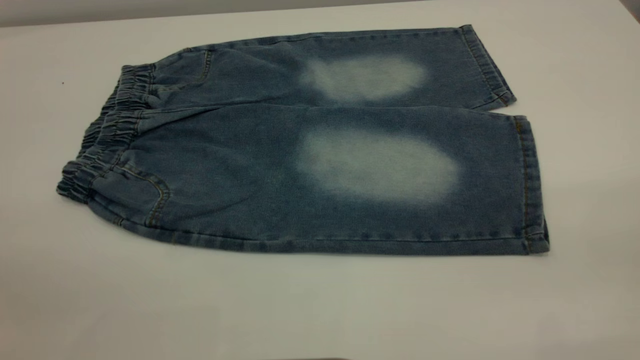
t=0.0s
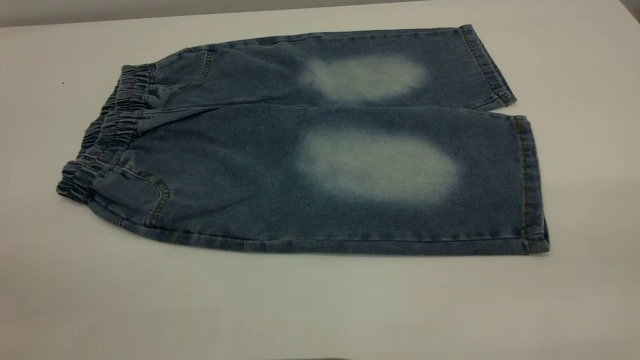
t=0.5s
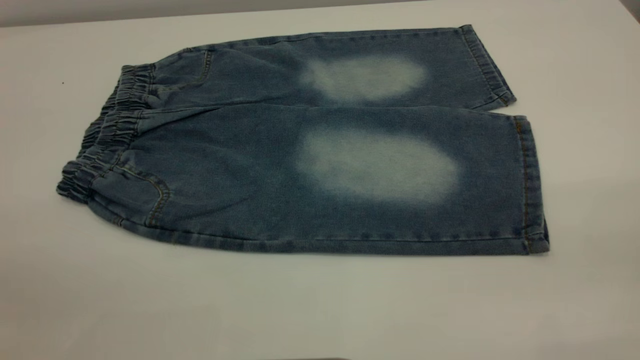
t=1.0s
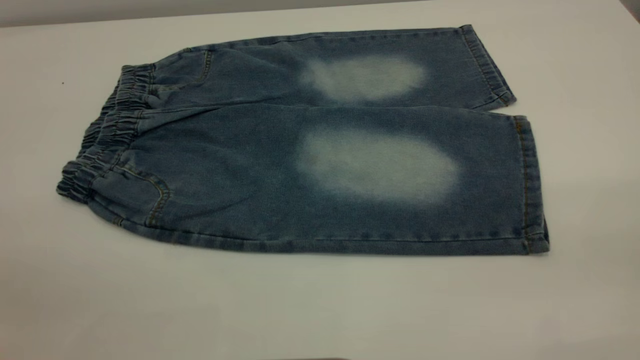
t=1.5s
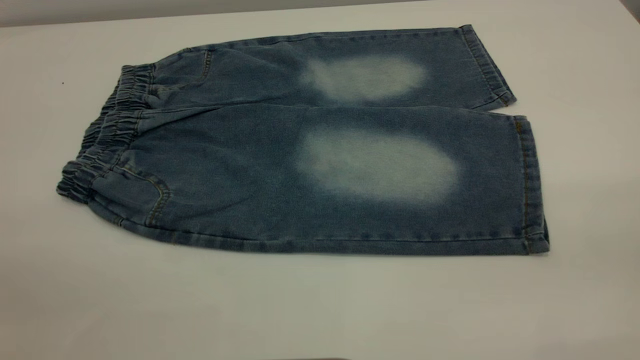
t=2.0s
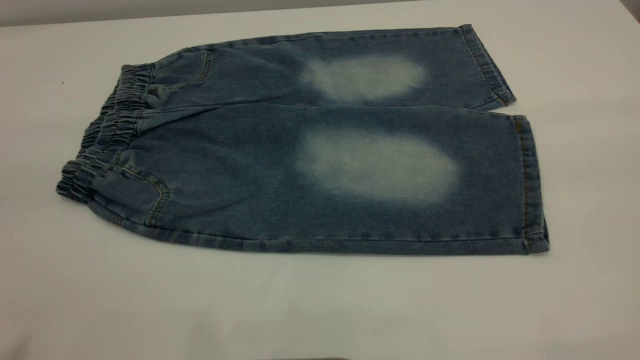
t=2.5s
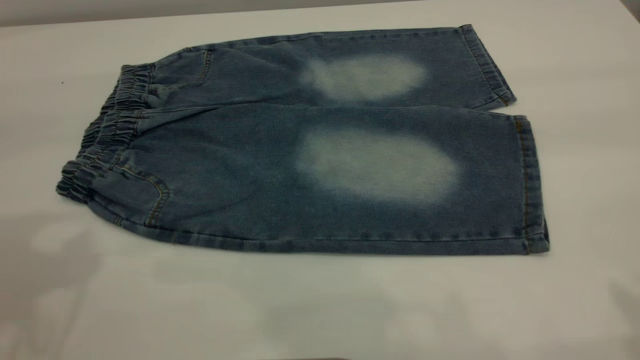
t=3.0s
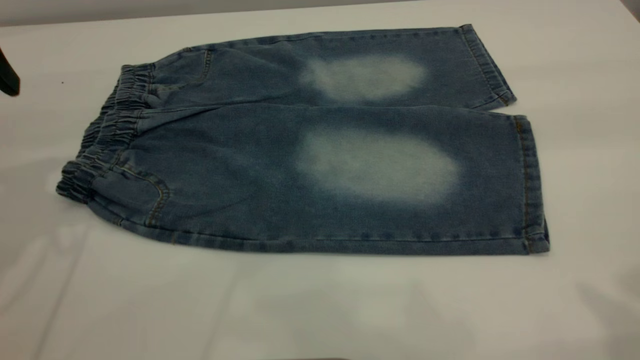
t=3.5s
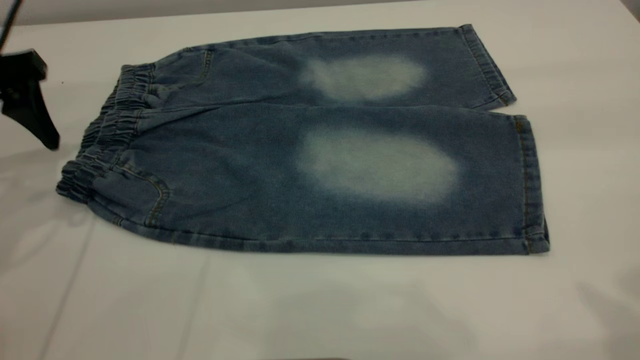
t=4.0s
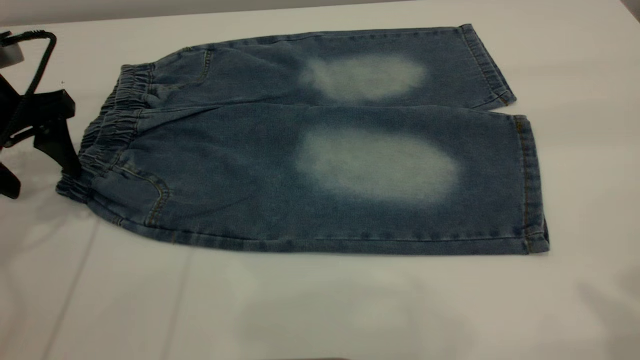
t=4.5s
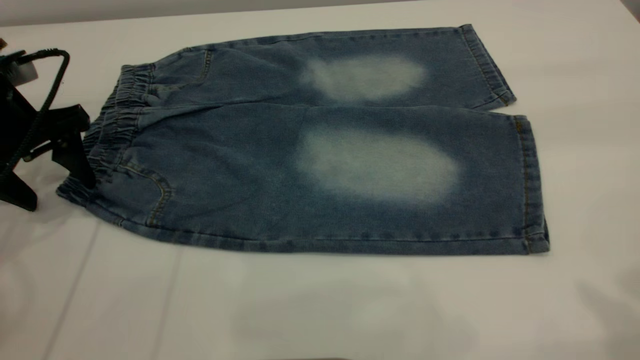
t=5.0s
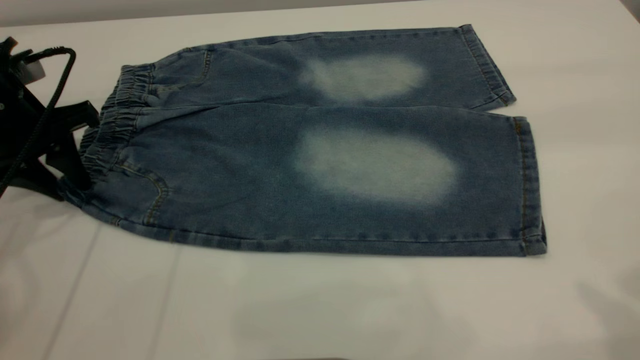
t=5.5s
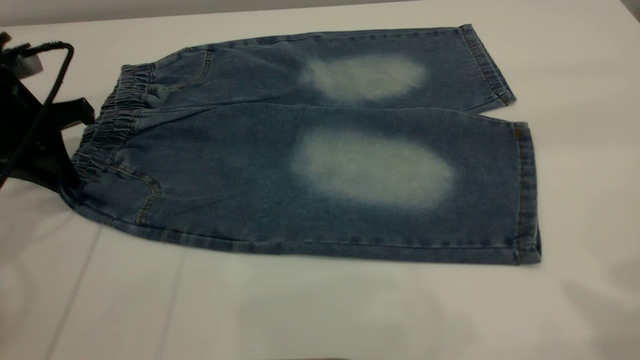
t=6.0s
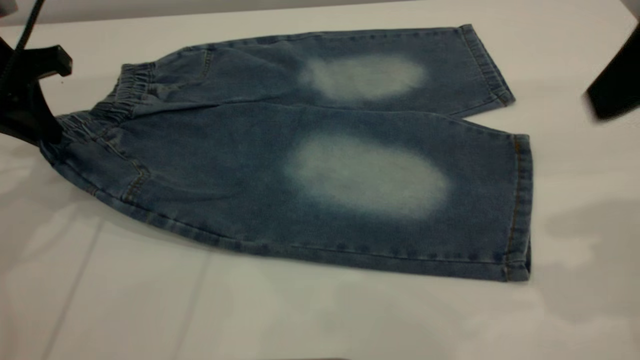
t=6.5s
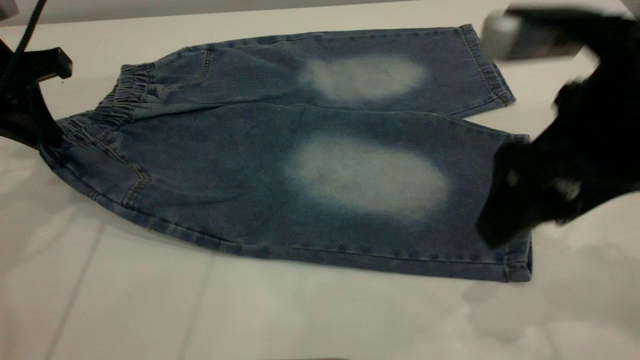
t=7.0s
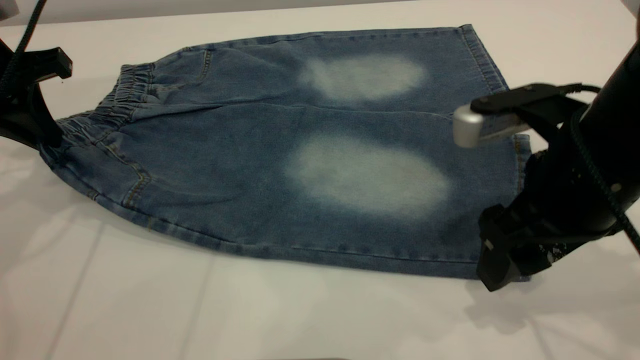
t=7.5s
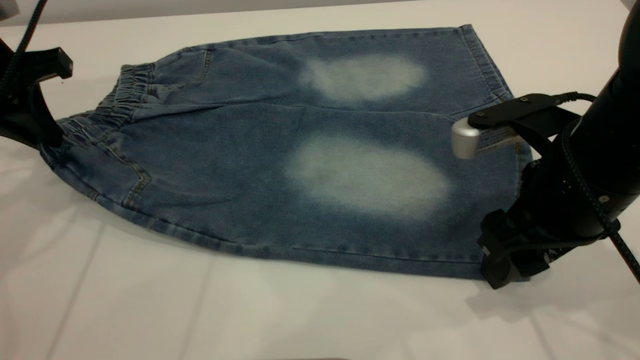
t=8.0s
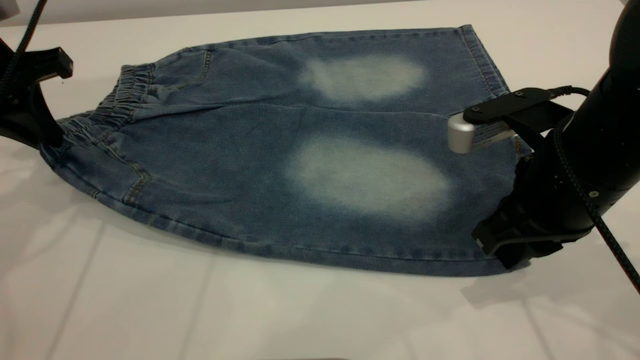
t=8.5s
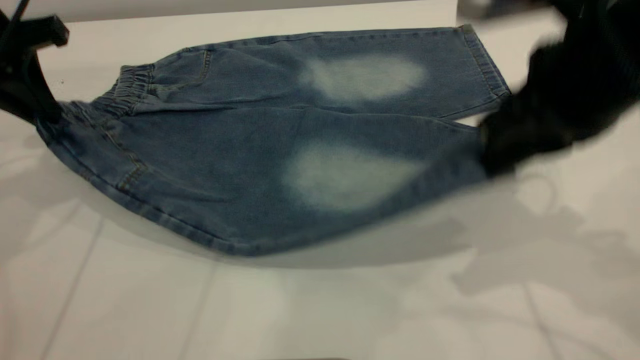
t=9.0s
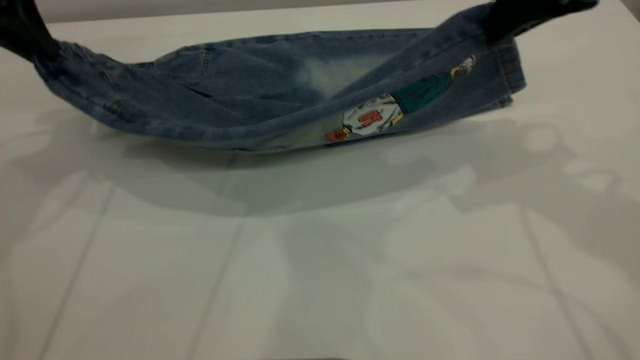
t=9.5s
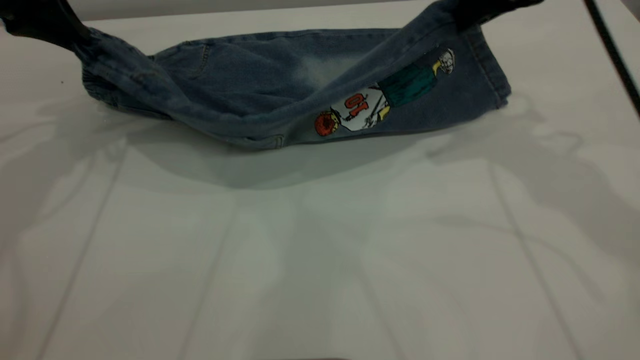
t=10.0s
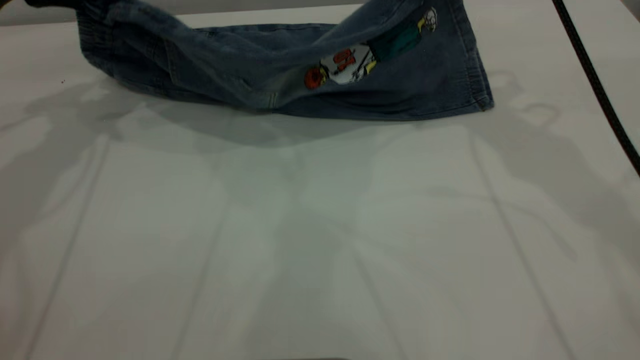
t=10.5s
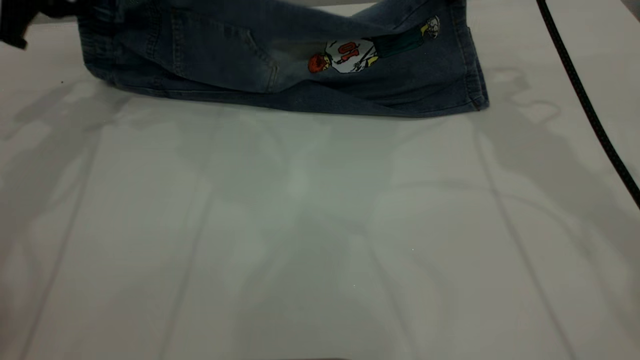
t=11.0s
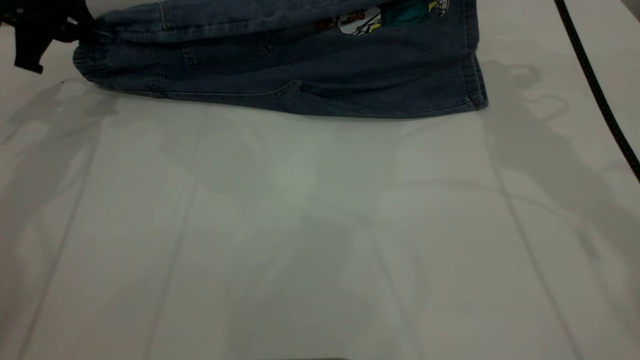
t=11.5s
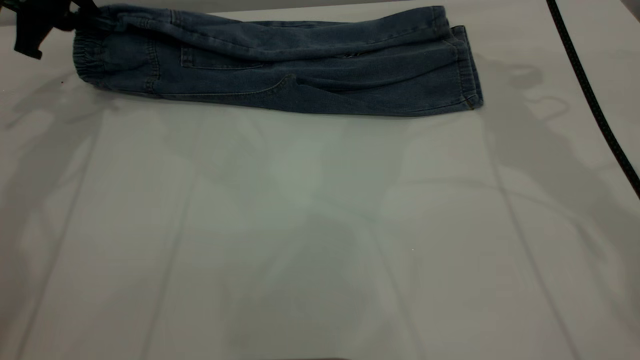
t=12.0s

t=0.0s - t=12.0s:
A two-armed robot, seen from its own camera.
t=0.0s - t=2.0s: The two grippers keep their place.
t=2.0s - t=4.0s: The left gripper goes some 35 cm forward and downward.
t=4.0s - t=6.0s: The left gripper closes.
t=6.0s - t=8.0s: The right gripper shifts some 25 cm downward.
t=8.0s - t=10.0s: The left gripper shifts roughly 5 cm forward; the right gripper travels forward and upward by some 20 cm, and closes.
t=10.0s - t=12.0s: The left gripper is displaced forward and downward by roughly 10 cm. The right gripper heads forward, covering roughly 5 cm, and opens.

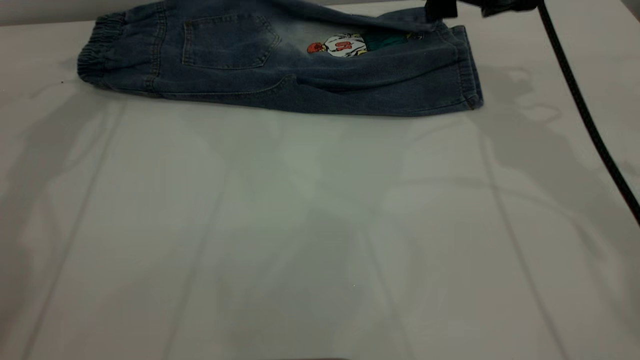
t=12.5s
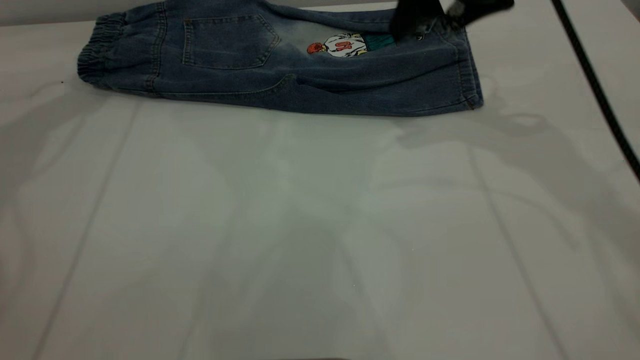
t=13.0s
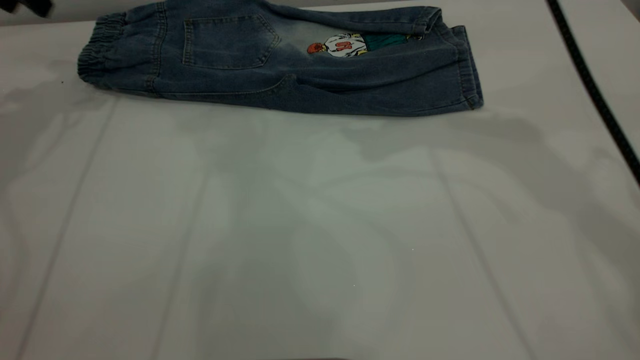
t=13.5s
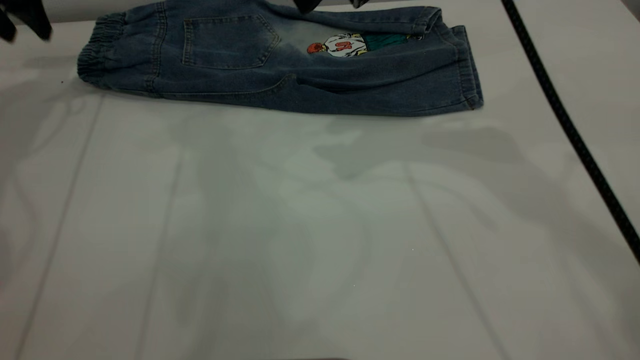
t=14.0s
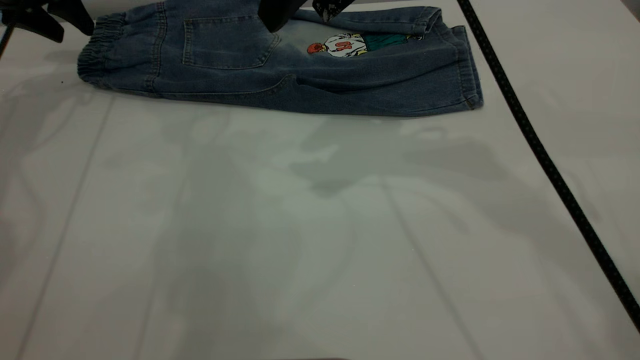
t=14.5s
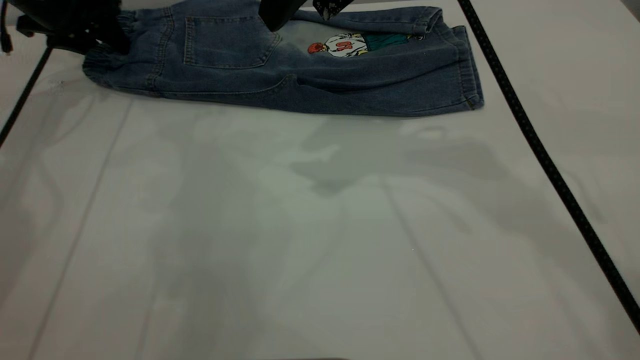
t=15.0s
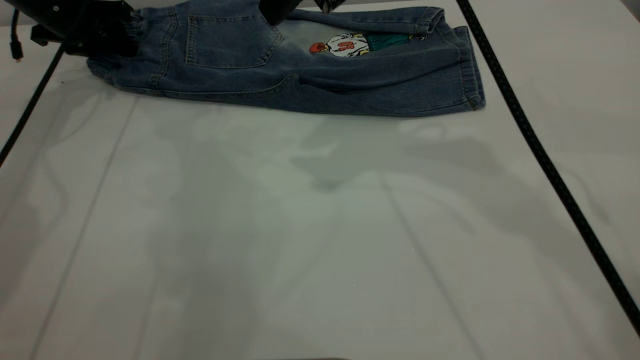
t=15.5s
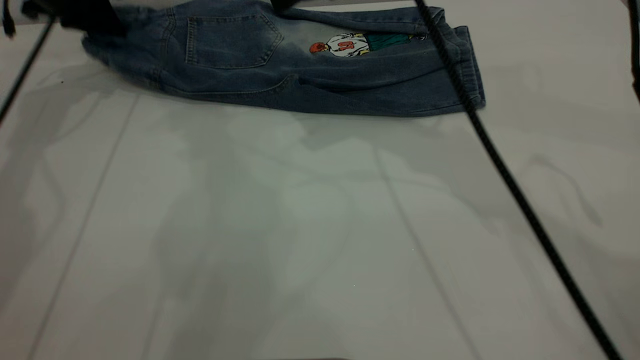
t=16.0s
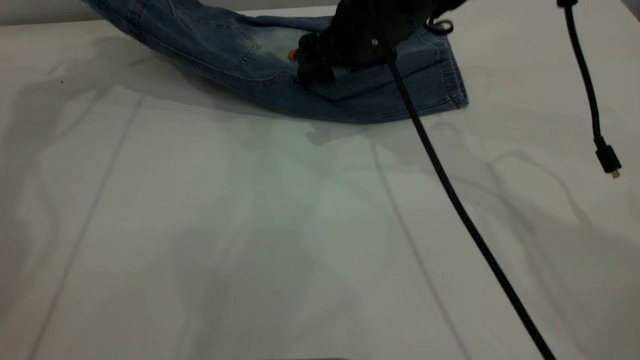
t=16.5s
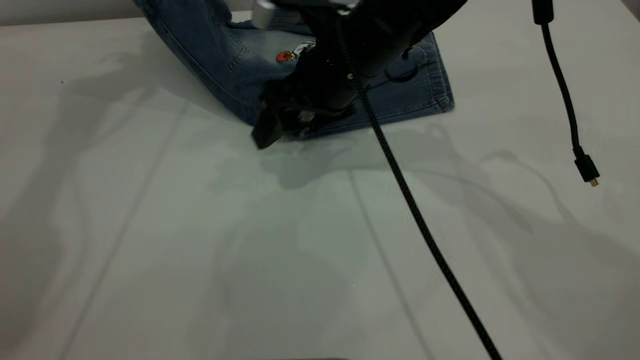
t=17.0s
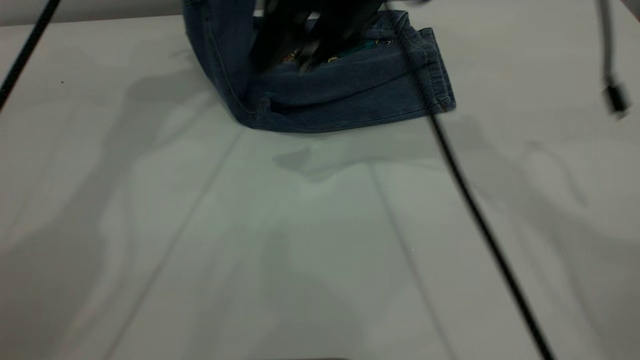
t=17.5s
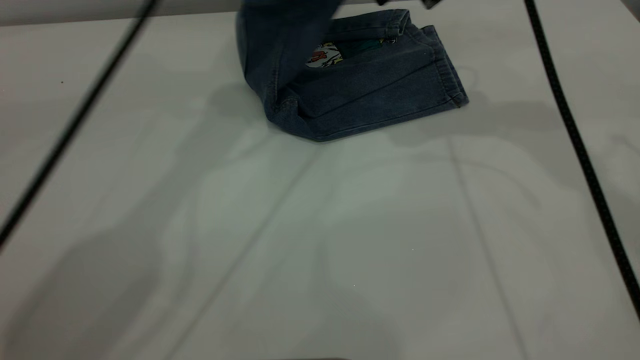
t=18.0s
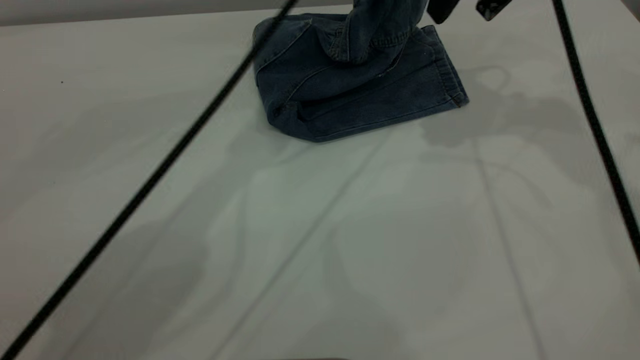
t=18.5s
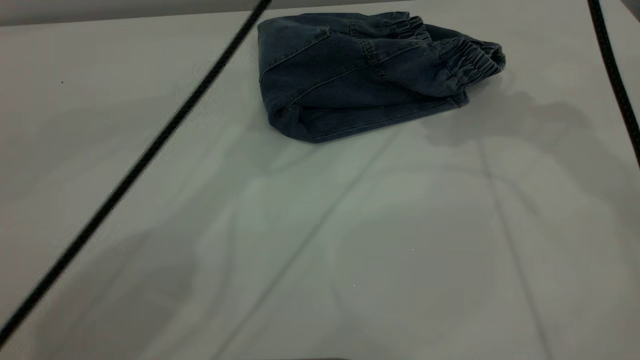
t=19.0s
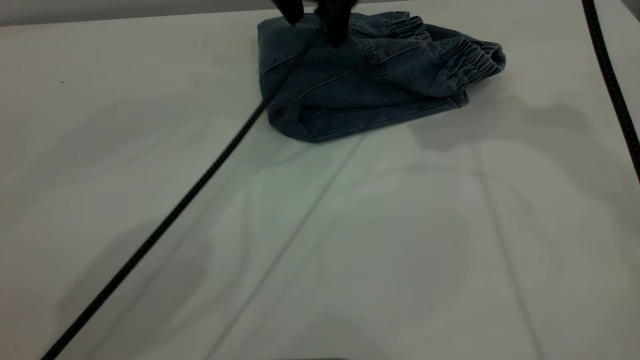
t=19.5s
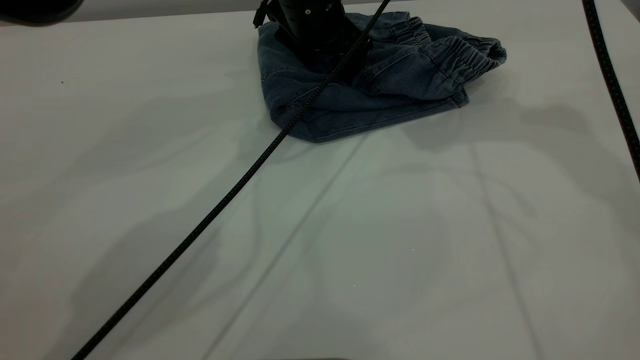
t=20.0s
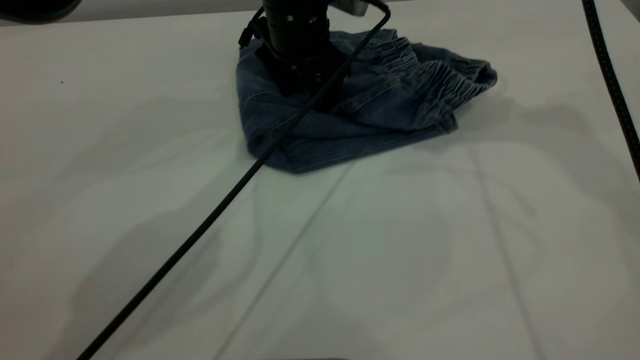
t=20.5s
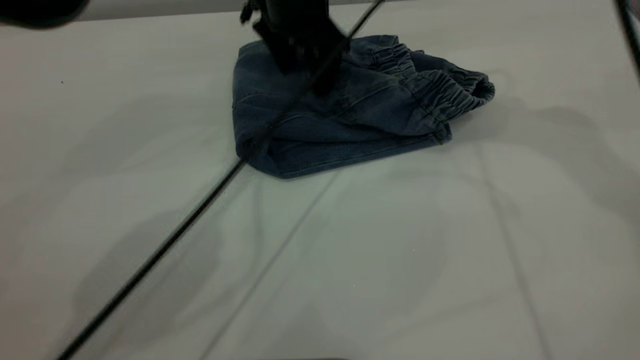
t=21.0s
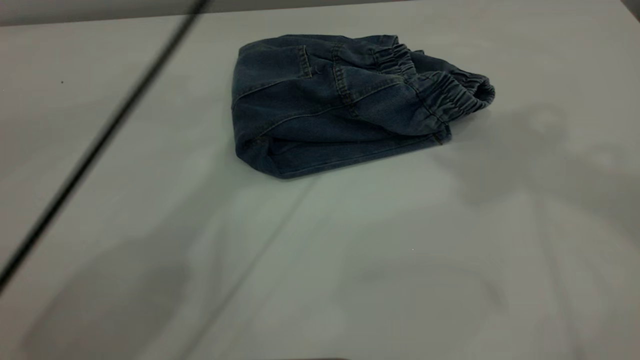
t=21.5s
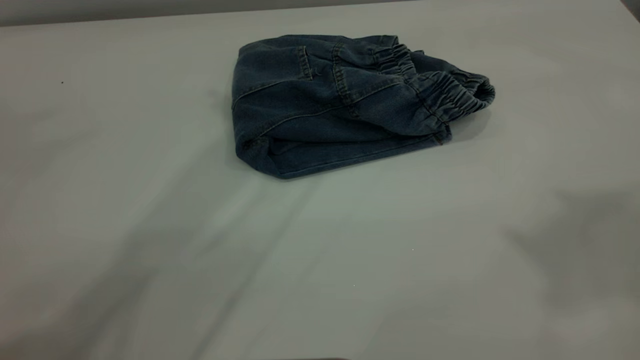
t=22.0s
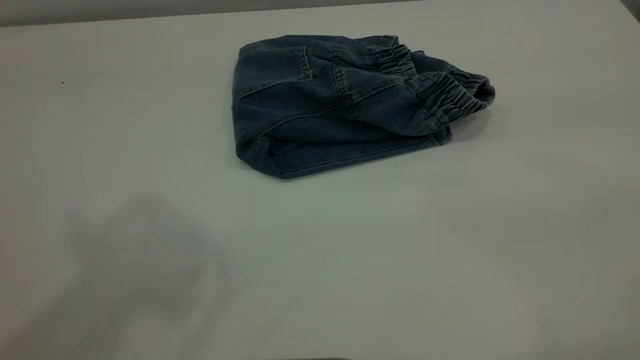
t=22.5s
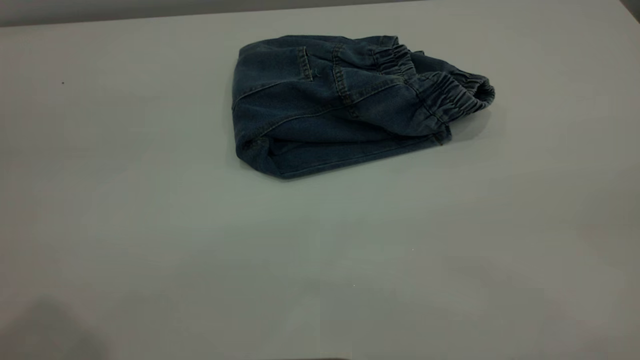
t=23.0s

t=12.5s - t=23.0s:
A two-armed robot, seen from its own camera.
Step, t=13.5s - t=19.0s: Fold the pants from left to right.
t=12.5s - t=14.5s: The left gripper is displaced to the left by some 5 cm. The right gripper heads to the left and upward, covering some 15 cm.
t=14.5s - t=16.5s: The left gripper is displaced upward by roughly 10 cm, and closes. Meanwhile the right gripper is displaced downward and forward by approximately 15 cm.
t=16.5s - t=19.0s: The left gripper is displaced to the right by roughly 30 cm, and opens. Meanwhile the right gripper shifts roughly 20 cm upward and to the right.
t=19.0s - t=21.0s: The left gripper heads downward, covering about 10 cm.
t=21.0s - t=23.0s: The left gripper travels backward, upward and to the left by roughly 50 cm, while the right gripper is displaced backward by roughly 40 cm.
